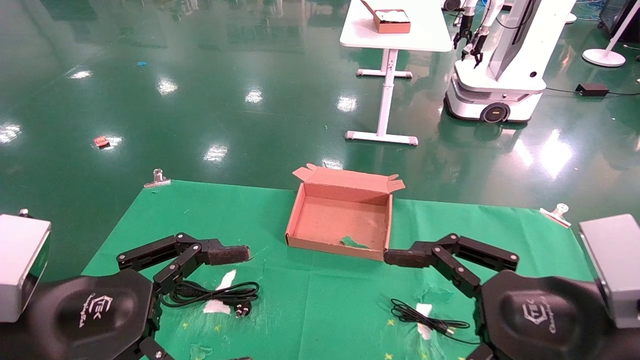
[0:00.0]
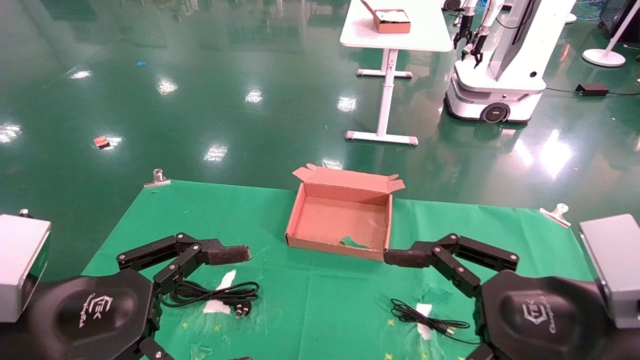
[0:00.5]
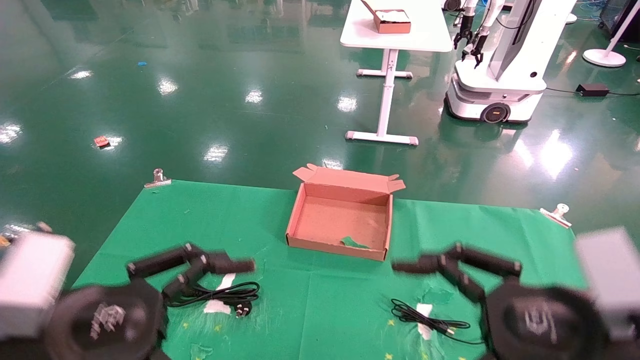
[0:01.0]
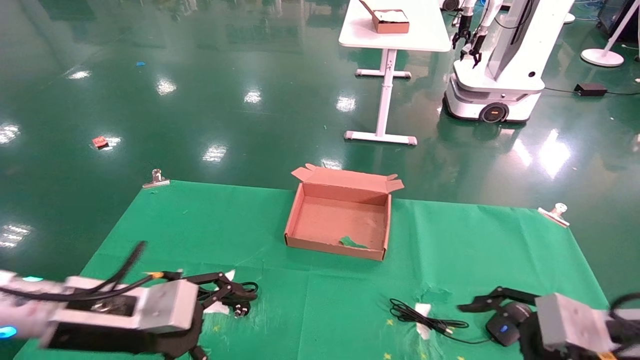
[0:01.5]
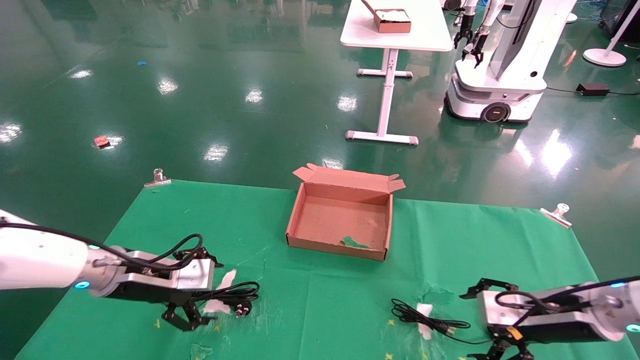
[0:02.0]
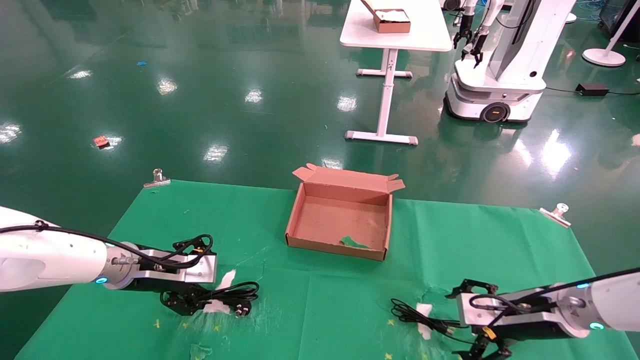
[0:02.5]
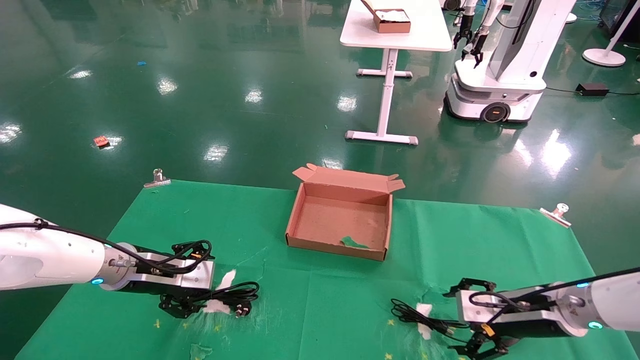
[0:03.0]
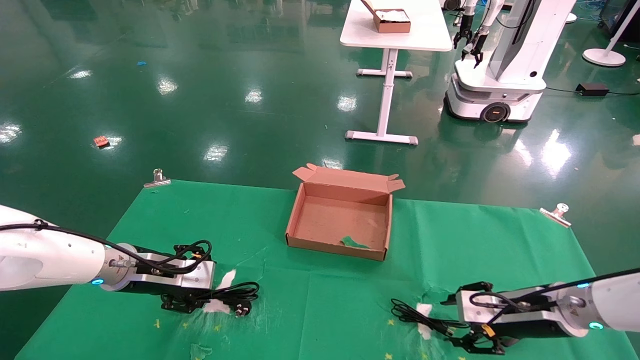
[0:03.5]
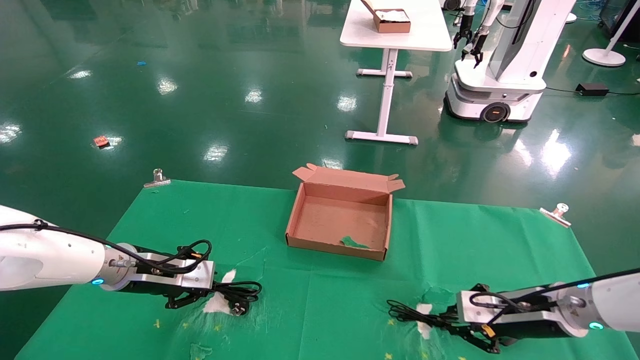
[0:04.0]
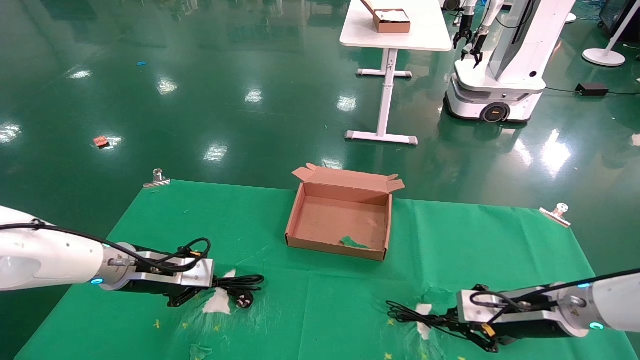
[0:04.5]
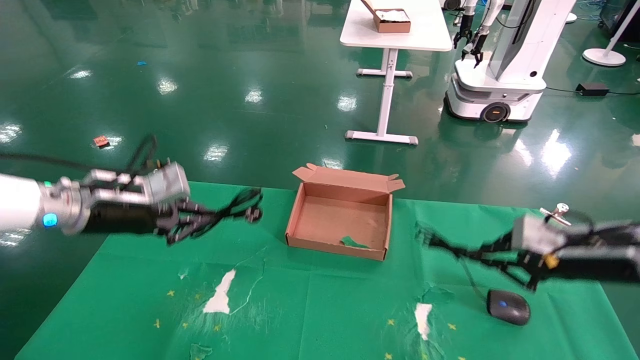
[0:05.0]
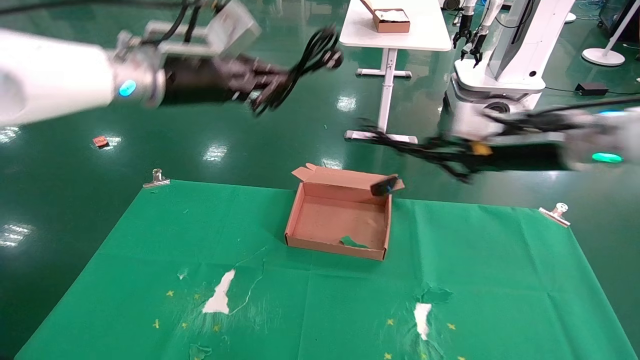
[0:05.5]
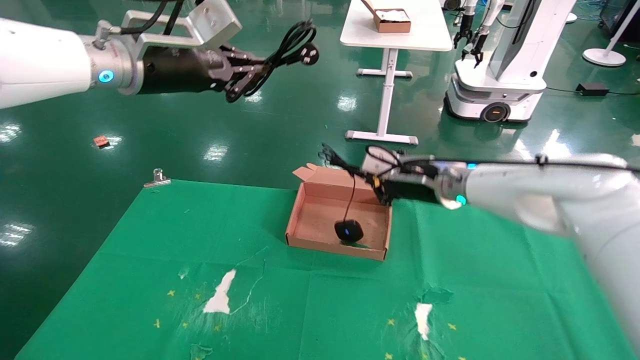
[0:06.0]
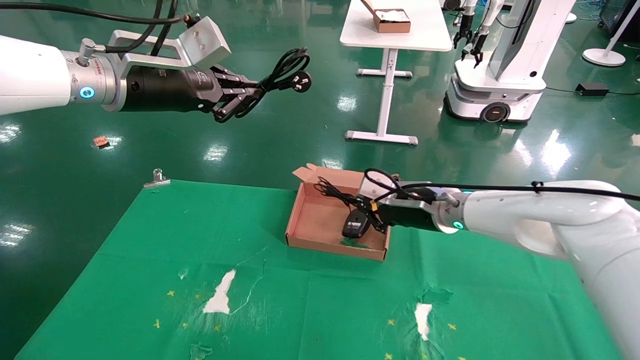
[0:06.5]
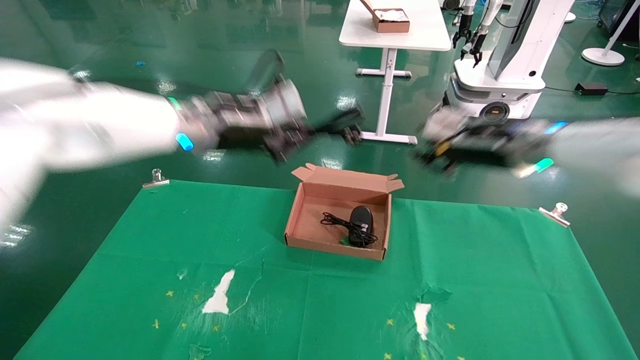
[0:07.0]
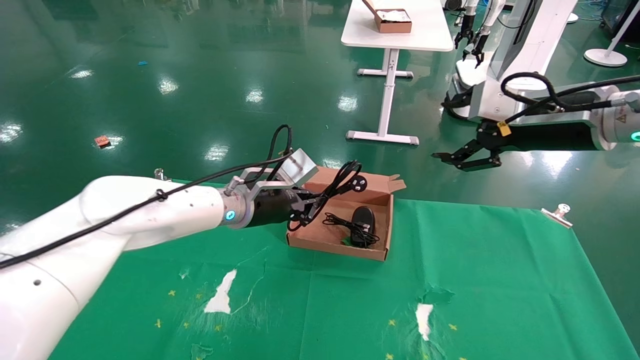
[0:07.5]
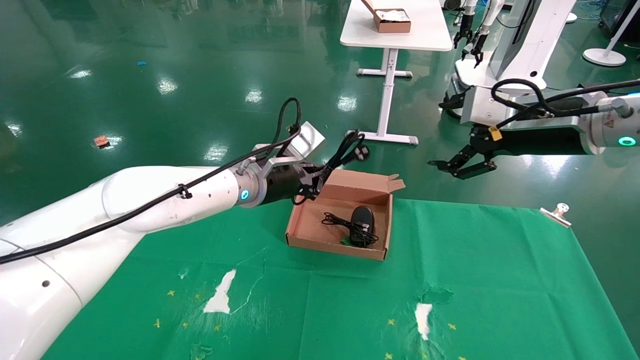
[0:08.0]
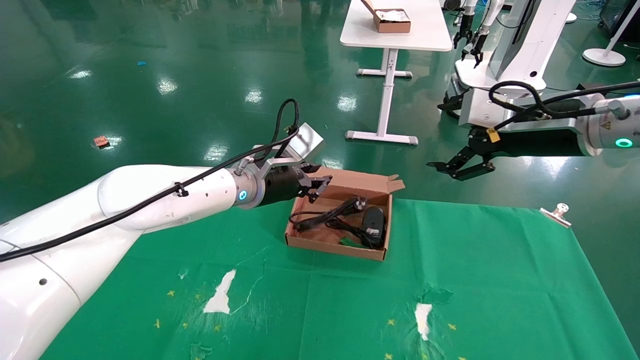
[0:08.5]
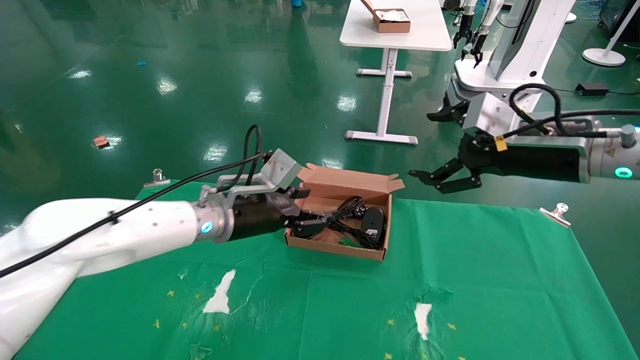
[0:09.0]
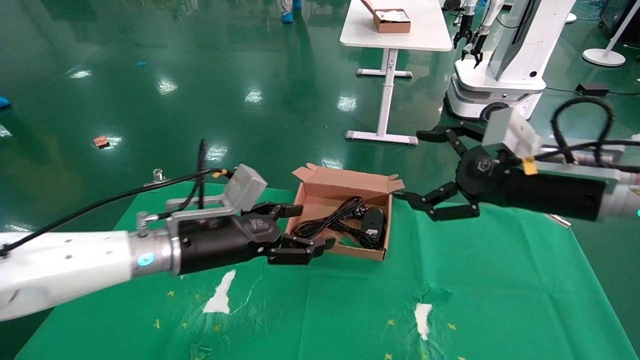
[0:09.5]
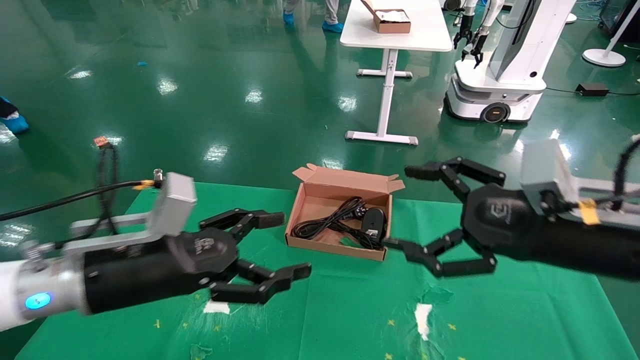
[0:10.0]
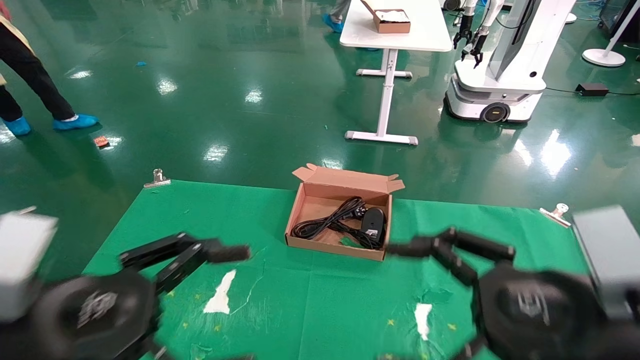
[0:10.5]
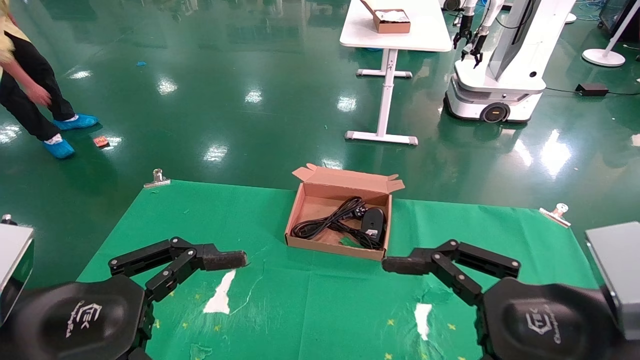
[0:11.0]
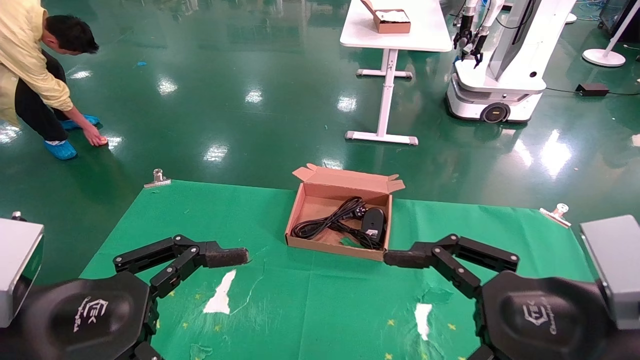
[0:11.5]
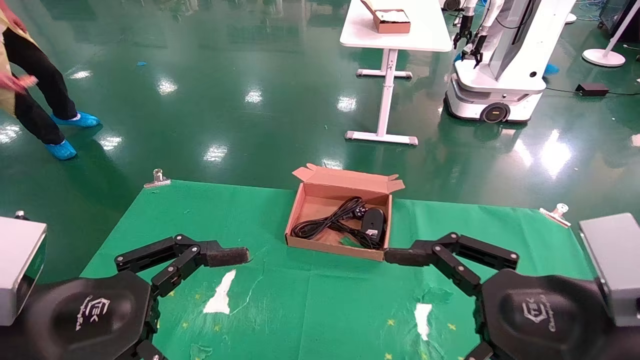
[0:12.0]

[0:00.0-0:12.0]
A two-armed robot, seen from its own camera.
Step, 0:01.5 to 0:04.0: Grab and lift both the mouse and power cord from the accessory packaging area at the same time.
Step, 0:04.5 to 0:09.0: Place the mouse and power cord into the box.
0:00.0 to 0:02.0: The right gripper heads forward, downward and to the right, covering roughly 25 cm; the left gripper moves forward, about 20 cm.
0:02.0 to 0:04.0: The right gripper closes up; the left gripper closes up.
0:04.0 to 0:06.0: The right gripper goes approximately 25 cm upward, to the left and forward. Meanwhile the left gripper is displaced upward by approximately 30 cm.
0:06.0 to 0:08.0: The left gripper travels downward and to the right by approximately 20 cm; the right gripper is displaced to the right, upward and backward by approximately 20 cm, and opens its fingers.
0:08.0 to 0:10.0: The right gripper heads backward and downward, covering about 15 cm, while the left gripper shifts some 25 cm backward and to the left, and opens up.
0:10.0 to 0:12.0: Both grippers travel together backward, approximately 10 cm.

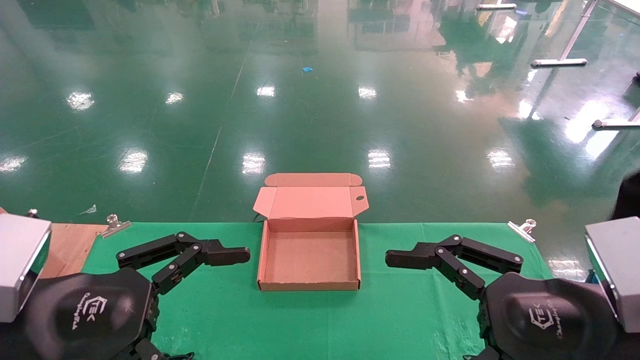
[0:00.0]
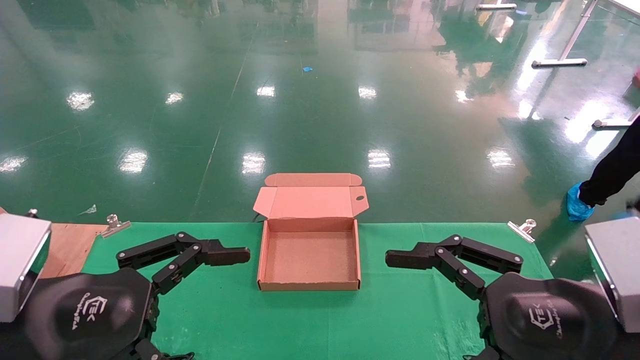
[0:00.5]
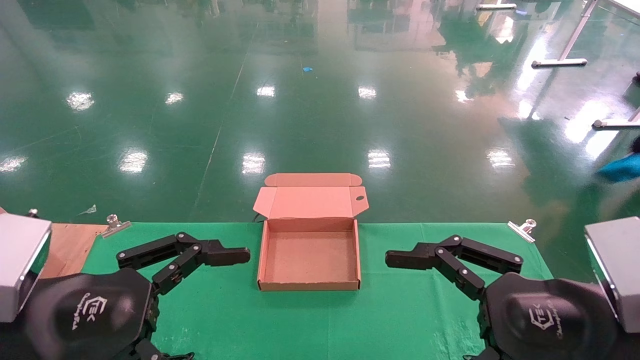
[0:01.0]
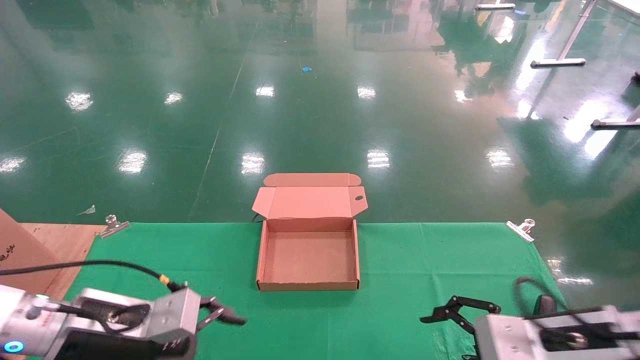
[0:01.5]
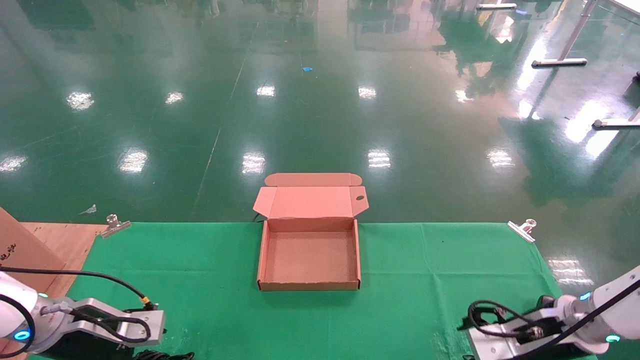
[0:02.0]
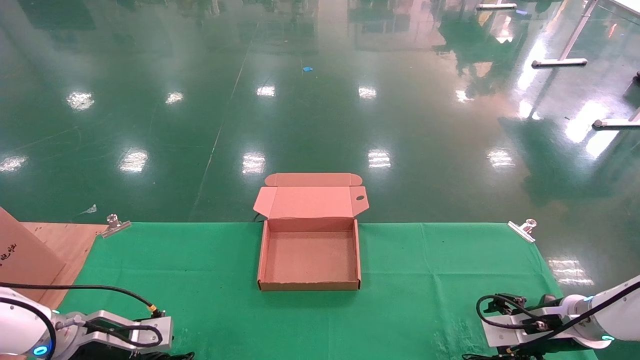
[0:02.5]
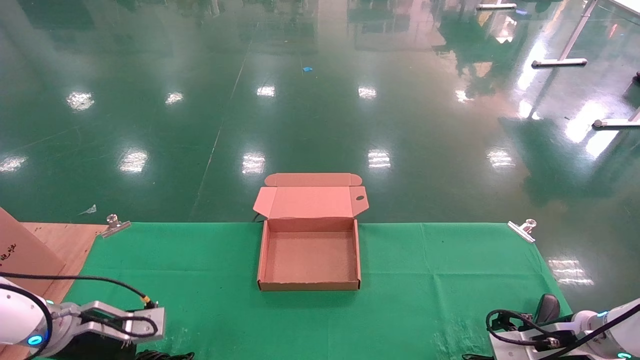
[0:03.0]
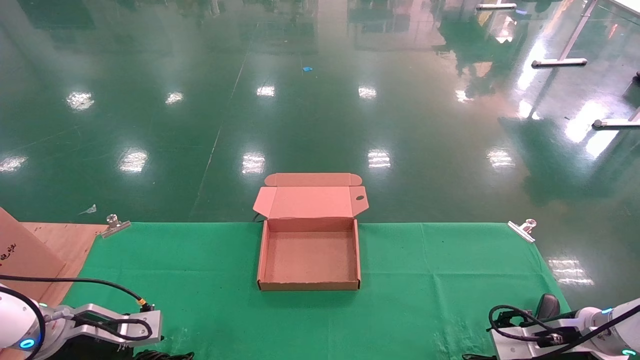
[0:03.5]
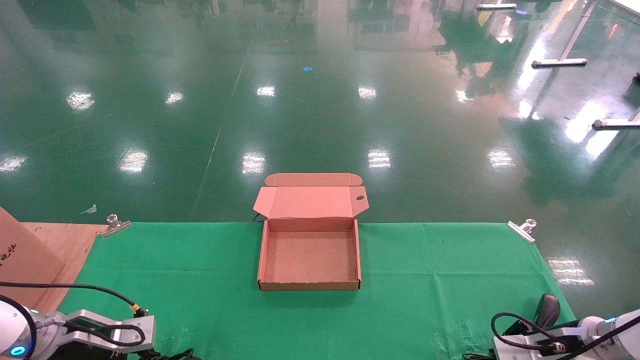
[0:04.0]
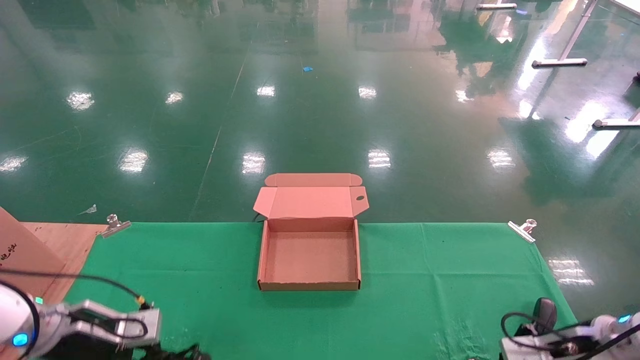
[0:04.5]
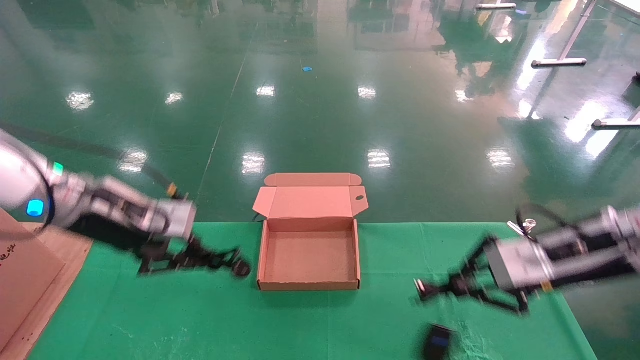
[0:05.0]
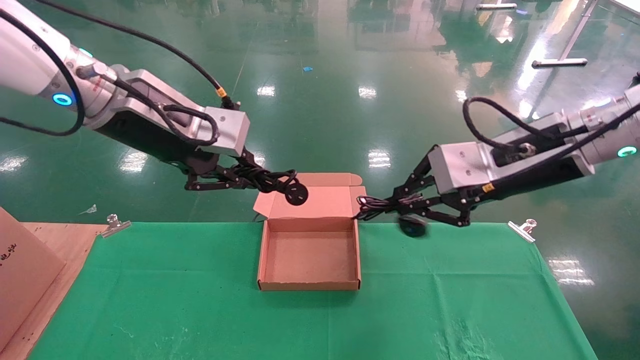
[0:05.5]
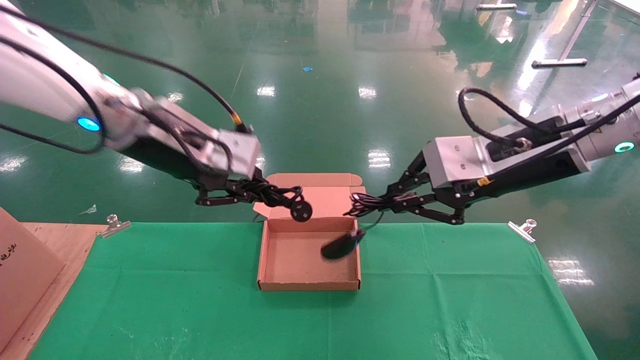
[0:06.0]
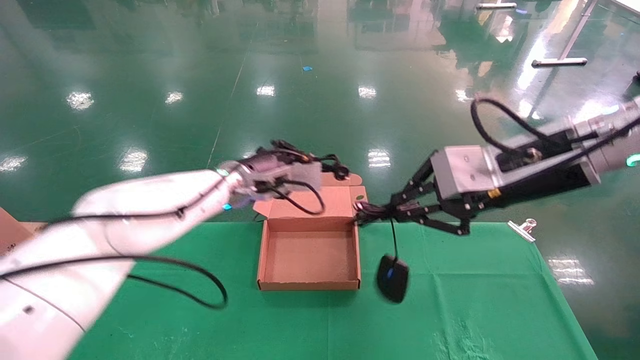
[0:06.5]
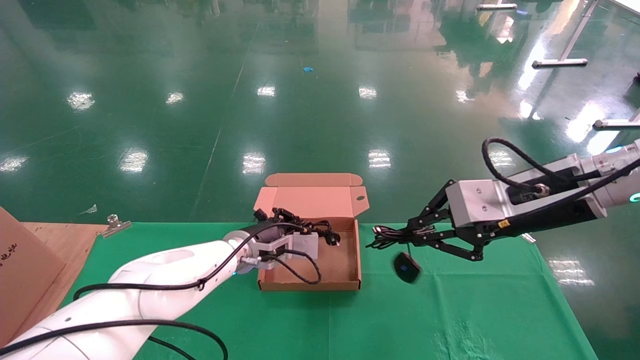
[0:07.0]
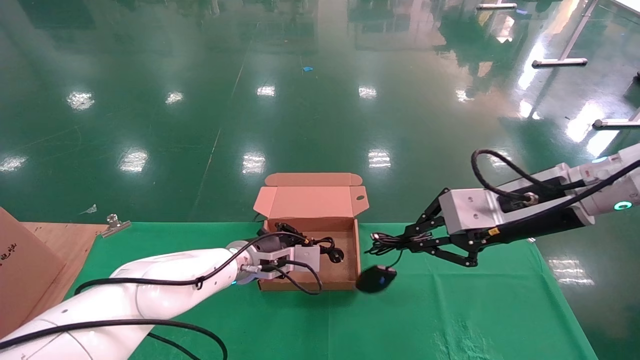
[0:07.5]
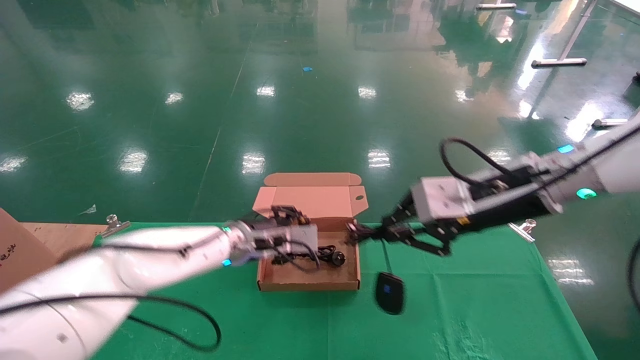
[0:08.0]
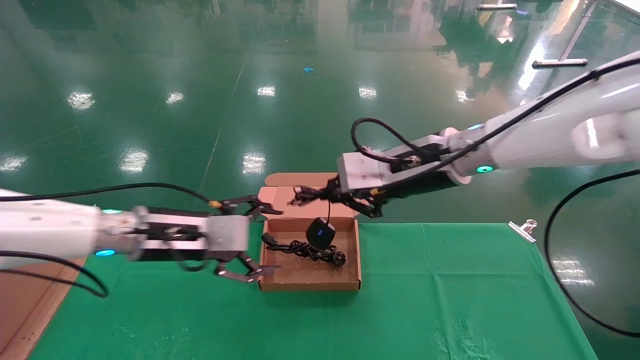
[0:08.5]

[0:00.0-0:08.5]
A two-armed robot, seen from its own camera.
Step, 0:01.0 to 0:04.5: Grab and lift both the mouse and power cord from the accessory packaging area at the same time.
0:00.0 to 0:02.0: The left gripper is displaced forward, downward and to the left by some 25 cm; the right gripper moves forward and downward, some 25 cm.
0:02.0 to 0:04.0: The right gripper heads to the right, covering some 5 cm, and closes. Meanwhile the left gripper closes its fingers.
0:04.0 to 0:06.5: The left gripper travels to the right and upward by some 30 cm. The right gripper goes approximately 30 cm upward and to the left, and closes.
0:06.5 to 0:08.5: The left gripper is displaced to the left and backward by some 15 cm, and opens, while the right gripper travels to the left and forward by roughly 10 cm.
